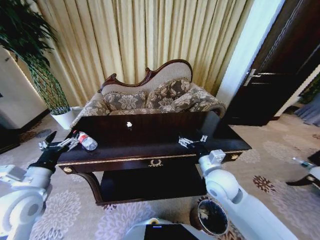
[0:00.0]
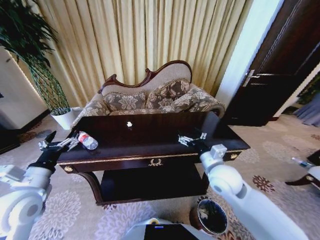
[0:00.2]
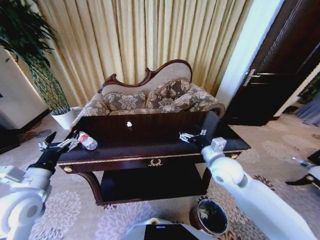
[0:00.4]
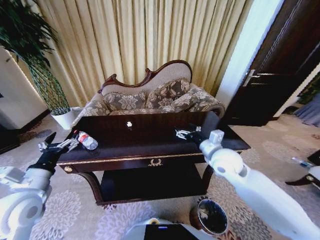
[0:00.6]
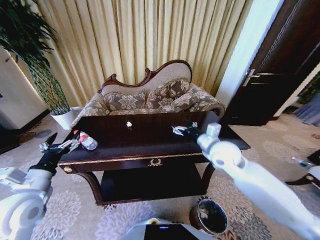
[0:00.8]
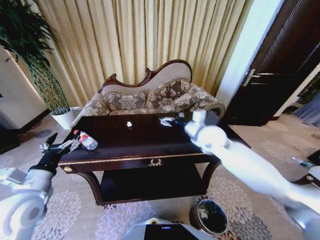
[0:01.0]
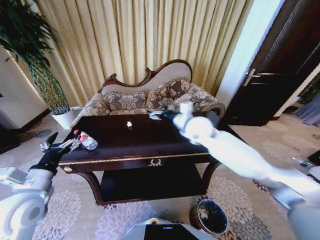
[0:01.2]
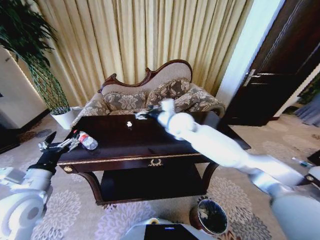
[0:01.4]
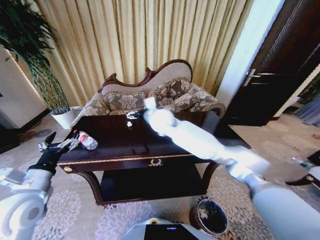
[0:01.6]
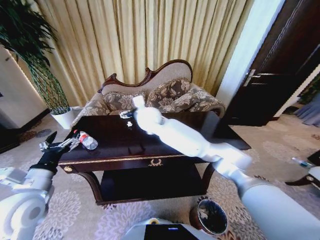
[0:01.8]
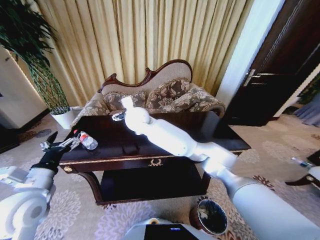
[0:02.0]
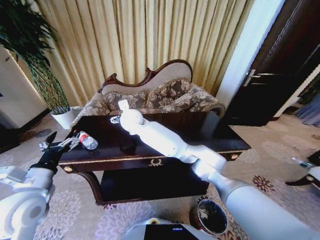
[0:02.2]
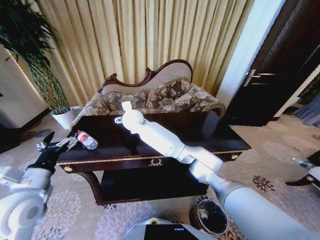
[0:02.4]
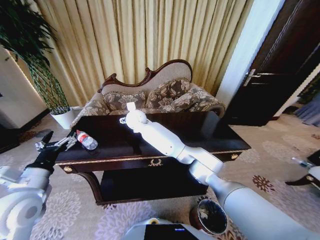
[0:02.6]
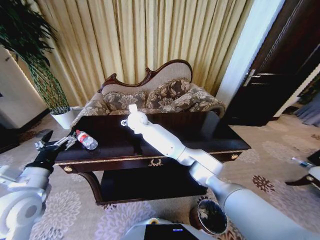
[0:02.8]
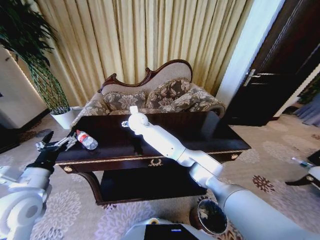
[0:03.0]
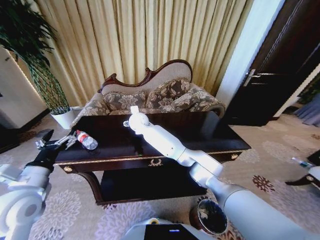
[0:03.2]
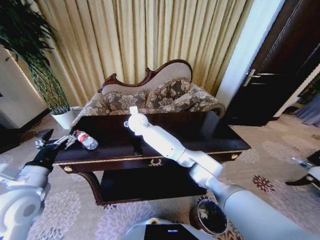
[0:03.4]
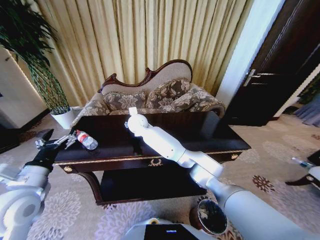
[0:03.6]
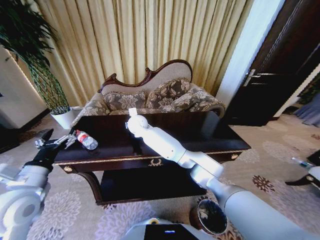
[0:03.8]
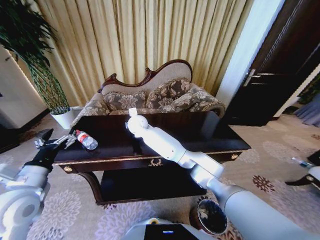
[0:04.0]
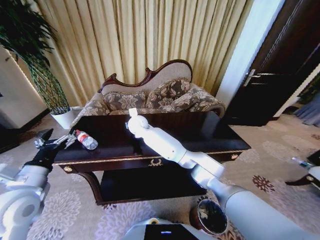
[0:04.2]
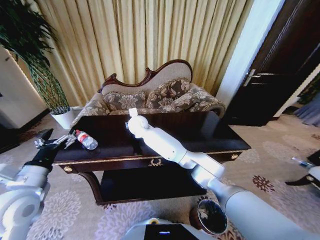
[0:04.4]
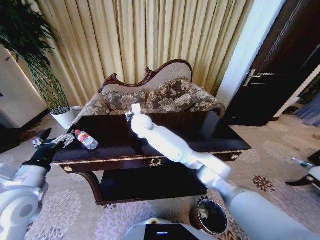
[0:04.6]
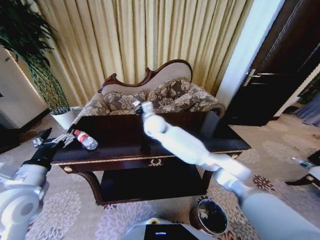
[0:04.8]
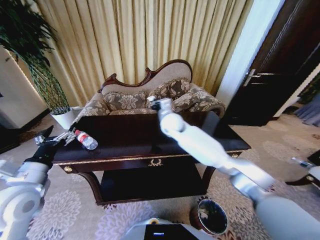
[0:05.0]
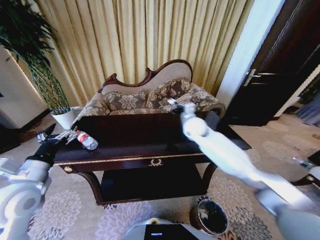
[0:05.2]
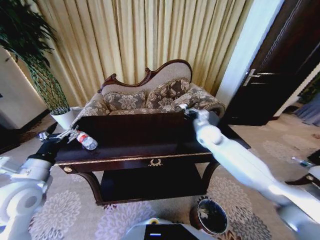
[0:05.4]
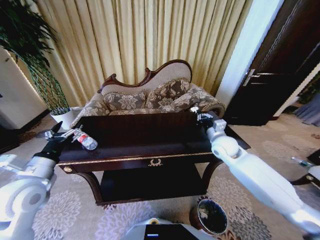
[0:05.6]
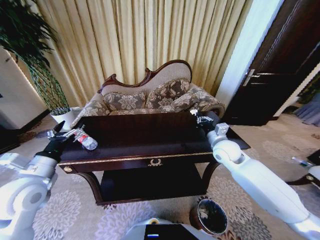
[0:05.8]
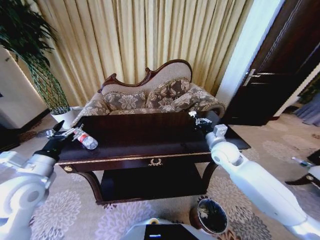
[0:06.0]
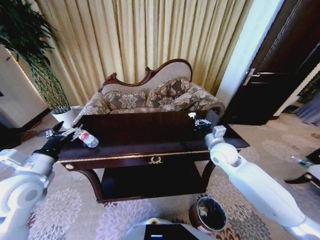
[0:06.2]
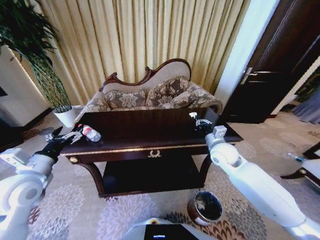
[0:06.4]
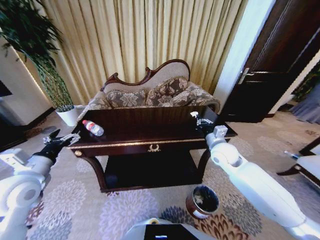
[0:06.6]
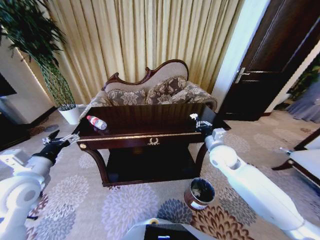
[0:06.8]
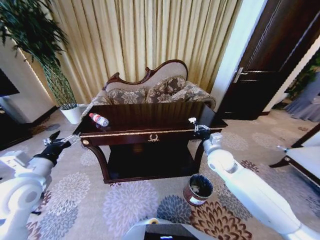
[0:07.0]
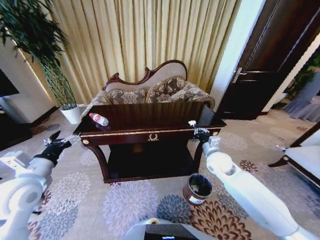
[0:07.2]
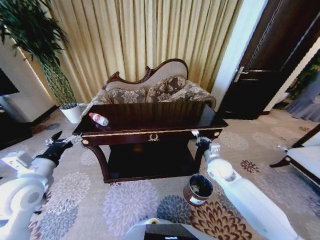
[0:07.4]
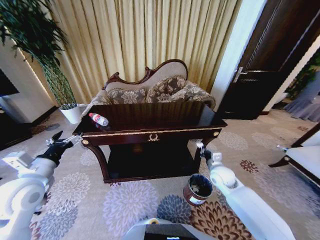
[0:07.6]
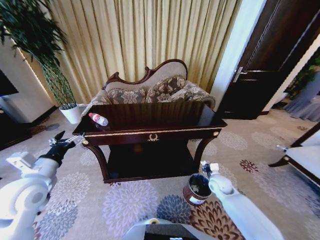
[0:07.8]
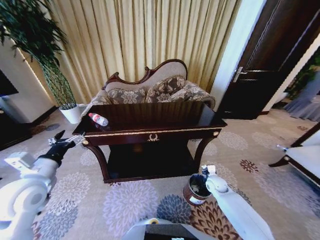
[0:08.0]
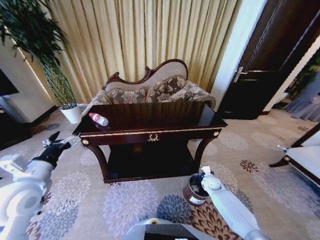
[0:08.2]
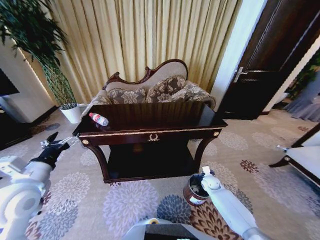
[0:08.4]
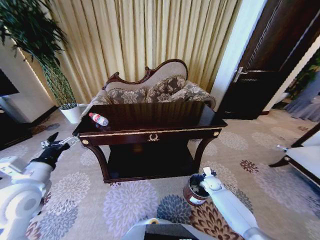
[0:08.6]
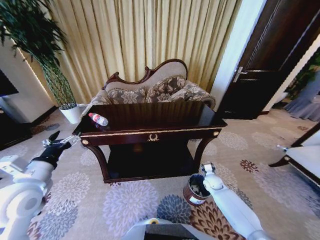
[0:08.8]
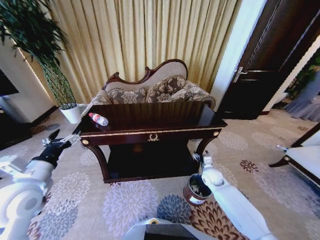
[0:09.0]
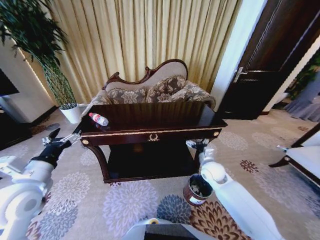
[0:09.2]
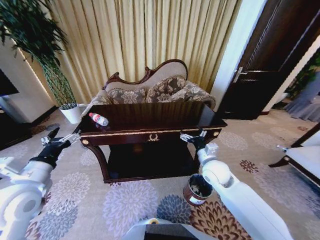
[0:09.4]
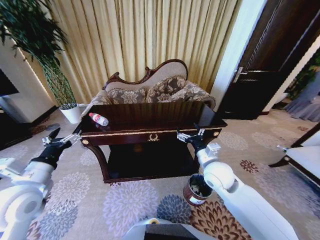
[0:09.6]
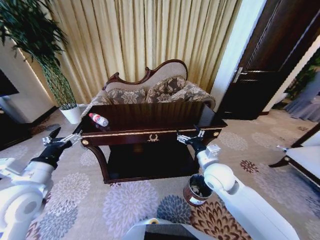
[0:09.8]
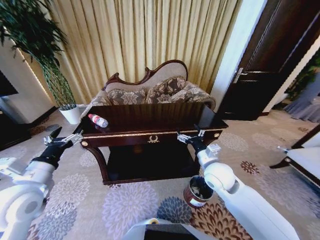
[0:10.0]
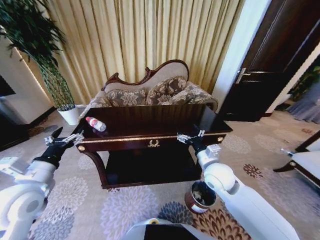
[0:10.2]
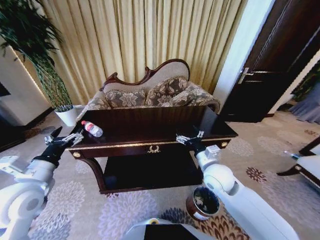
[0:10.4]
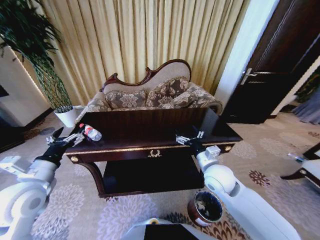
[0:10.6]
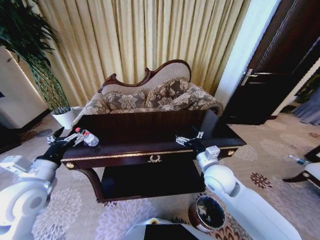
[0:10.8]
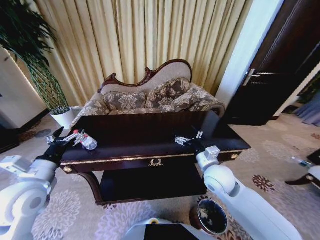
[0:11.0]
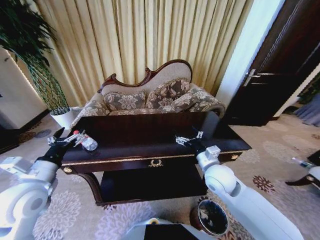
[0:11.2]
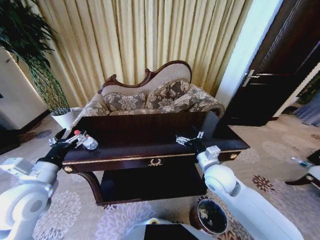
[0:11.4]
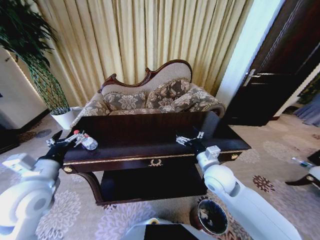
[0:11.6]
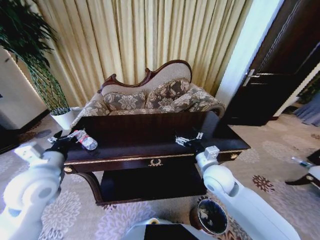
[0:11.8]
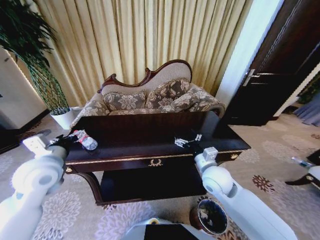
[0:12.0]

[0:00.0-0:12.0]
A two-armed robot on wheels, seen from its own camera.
Task of the whole recording: Move to the front of the table and place the trash on the table into the trash bin.
0:00.0 to 0:01.6: The right gripper heads forward, to the left and upward, covering approximately 30 cm.
0:01.6 to 0:03.0: The right gripper heads to the left, forward and downward, covering about 15 cm.
0:03.0 to 0:04.4: The right gripper closes up.
0:04.4 to 0:06.0: The right gripper shifts about 35 cm to the right.
0:06.0 to 0:07.6: The right gripper shifts approximately 15 cm downward.
0:07.6 to 0:09.0: The right gripper reaches some 20 cm downward, then returns, and opens.
0:09.0 to 0:10.4: The right gripper shifts some 20 cm upward, to the left and backward.
0:10.4 to 0:12.0: The left gripper heads forward, covering approximately 5 cm.

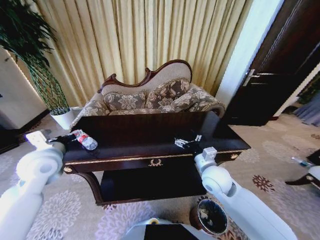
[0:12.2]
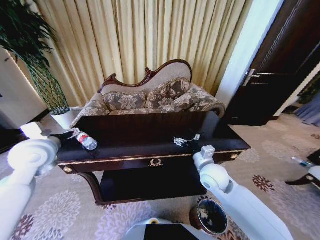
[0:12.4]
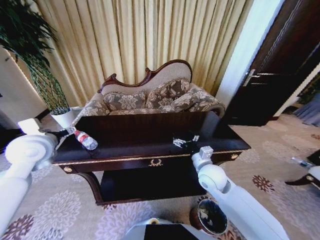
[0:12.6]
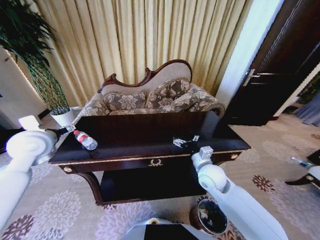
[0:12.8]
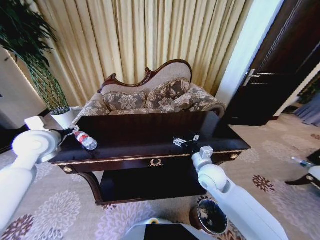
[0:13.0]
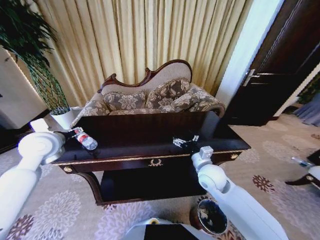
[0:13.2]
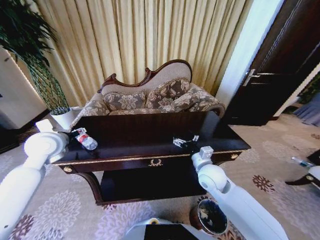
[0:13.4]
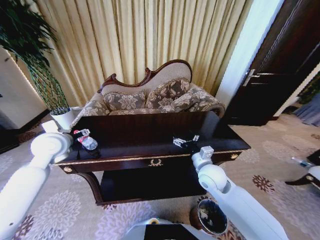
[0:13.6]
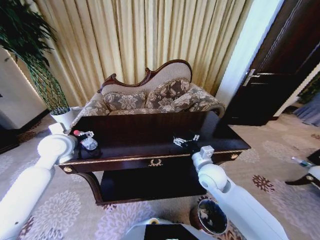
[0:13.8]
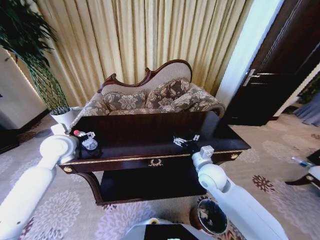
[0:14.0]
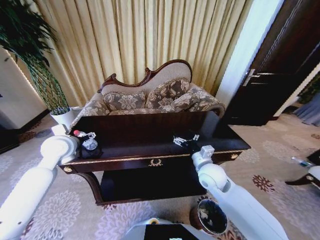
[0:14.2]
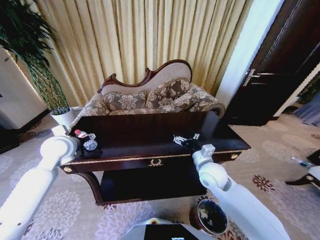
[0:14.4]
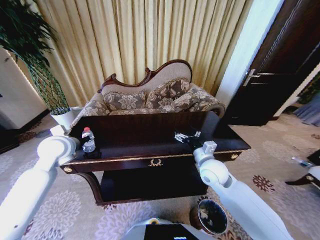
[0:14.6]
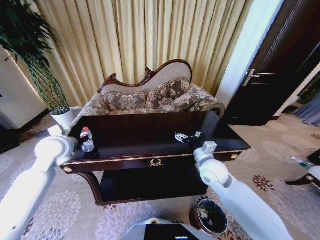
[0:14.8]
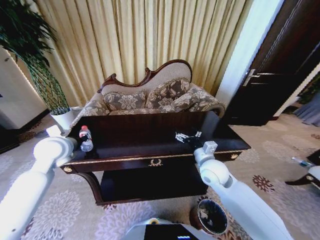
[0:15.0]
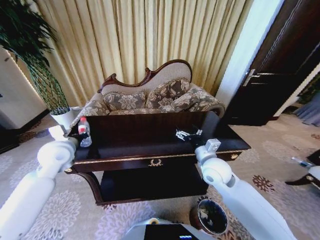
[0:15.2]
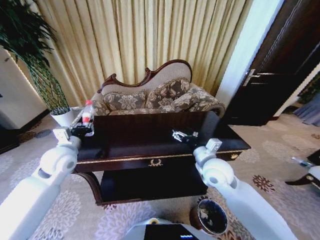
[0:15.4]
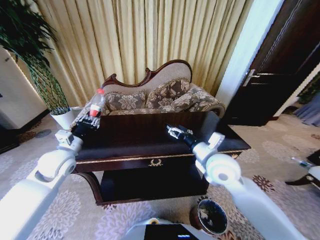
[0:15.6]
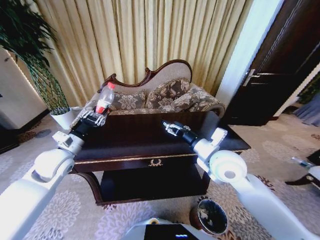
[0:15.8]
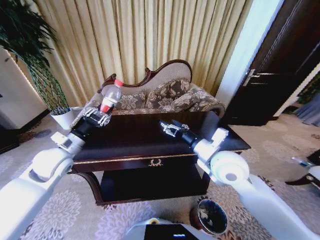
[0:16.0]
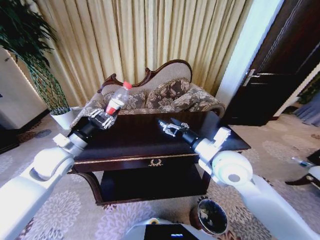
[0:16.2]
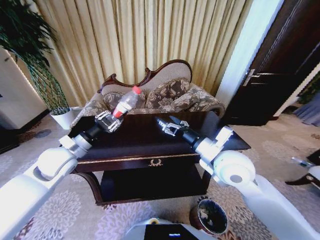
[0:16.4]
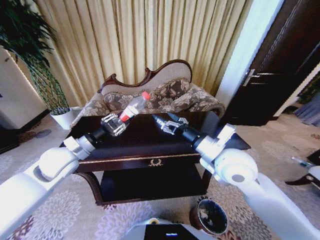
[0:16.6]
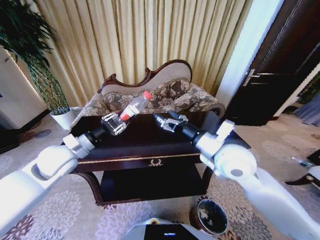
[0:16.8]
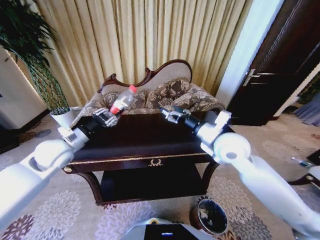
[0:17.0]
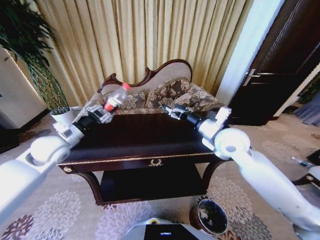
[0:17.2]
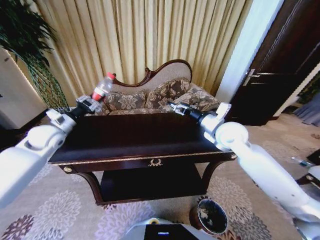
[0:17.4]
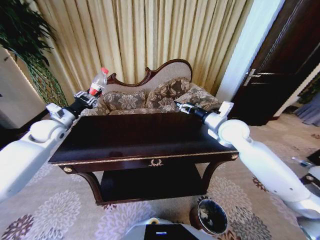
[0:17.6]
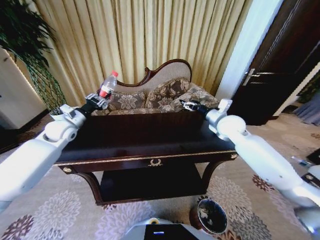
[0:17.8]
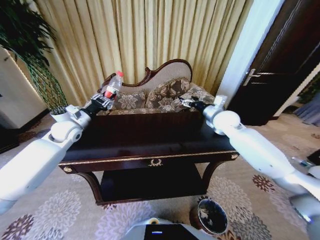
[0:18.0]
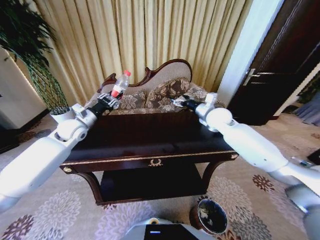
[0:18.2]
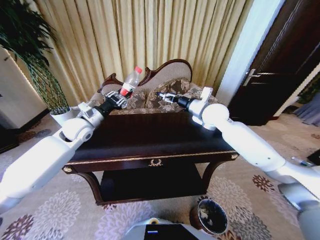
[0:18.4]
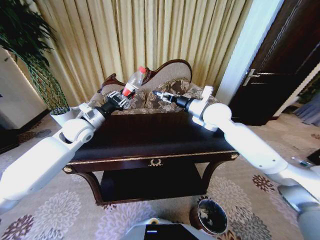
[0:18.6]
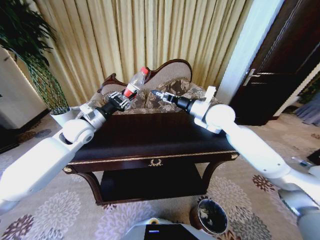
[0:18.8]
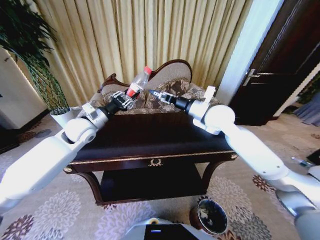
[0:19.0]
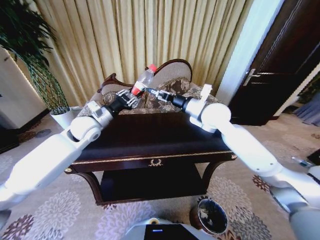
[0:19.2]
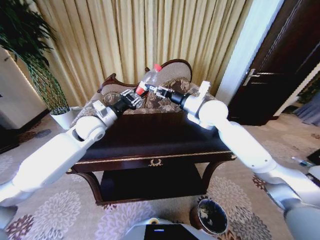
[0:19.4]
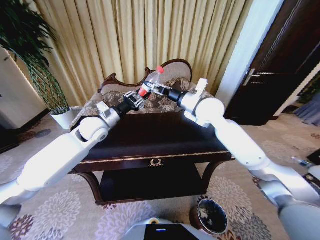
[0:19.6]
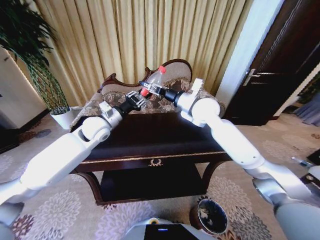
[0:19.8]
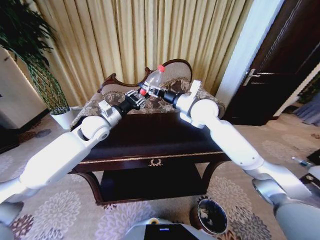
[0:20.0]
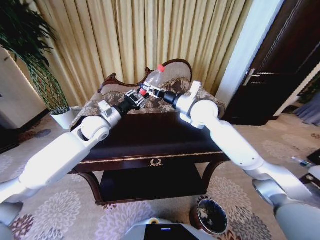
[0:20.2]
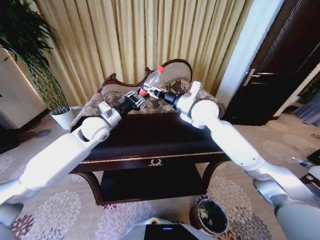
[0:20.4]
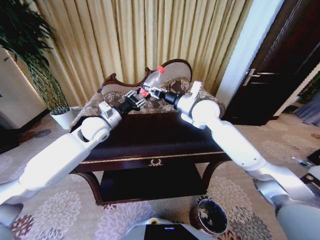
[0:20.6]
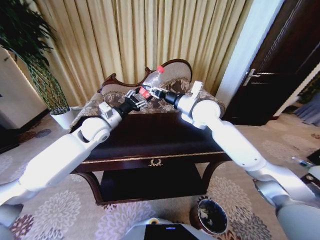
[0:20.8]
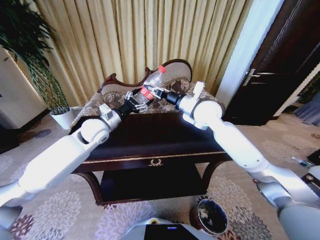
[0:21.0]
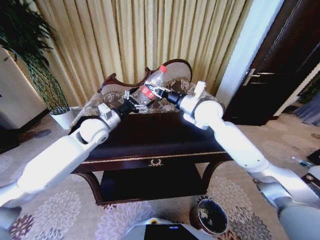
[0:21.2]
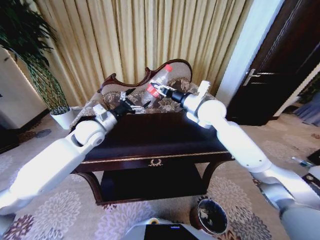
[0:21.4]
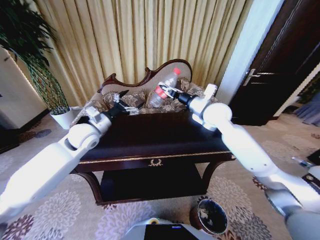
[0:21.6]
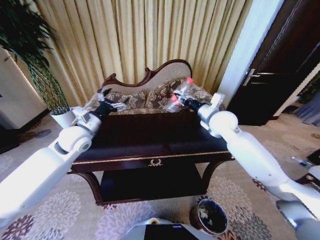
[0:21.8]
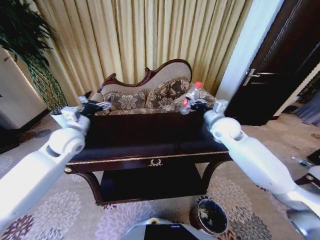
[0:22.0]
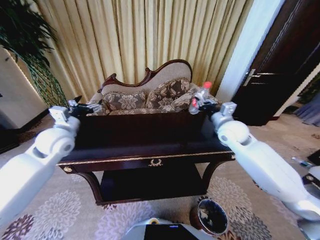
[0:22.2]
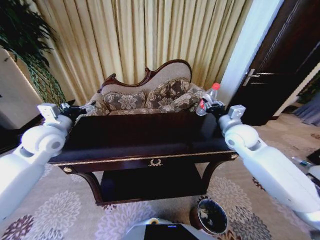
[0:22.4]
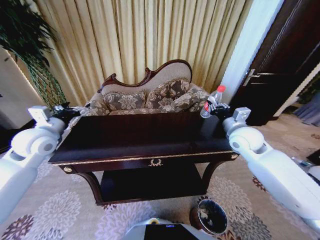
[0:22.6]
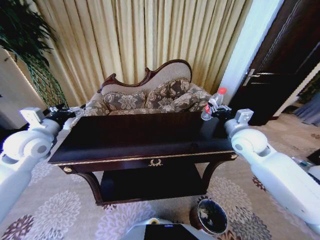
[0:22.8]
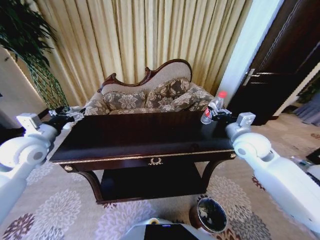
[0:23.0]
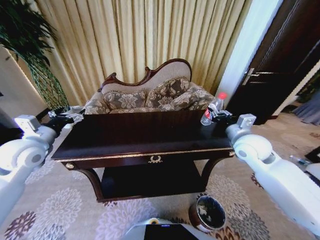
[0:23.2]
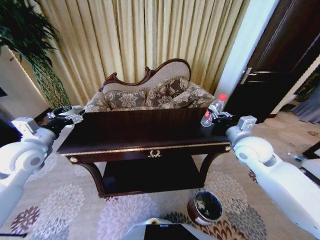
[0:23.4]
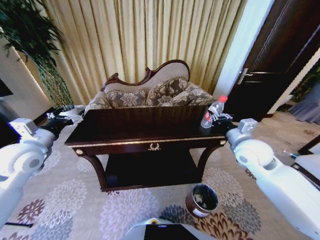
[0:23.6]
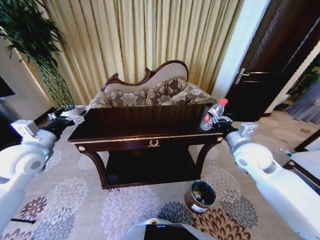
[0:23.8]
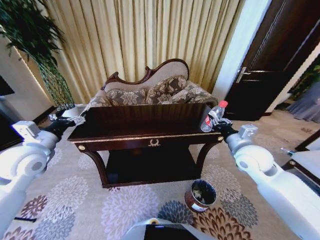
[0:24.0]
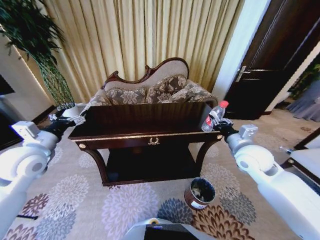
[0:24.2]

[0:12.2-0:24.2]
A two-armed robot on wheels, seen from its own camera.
Task of the whole recording: Move to the front of the table and place the trash on the table into the trash bin.
0:12.2 to 0:13.8: The left gripper heads forward, covering roughly 5 cm.
0:13.8 to 0:15.2: The left gripper closes up.
0:15.2 to 0:16.6: The right gripper is displaced upward by approximately 10 cm.
0:16.6 to 0:18.2: The left gripper is displaced forward by about 15 cm; the right gripper is displaced forward by some 25 cm.
0:18.2 to 0:19.8: The right gripper heads to the left and upward, covering about 10 cm. The left gripper is displaced to the right by about 10 cm.
0:19.8 to 0:21.2: The right gripper closes, while the left gripper opens up.
0:21.2 to 0:22.6: The right gripper heads to the right, downward and backward, covering some 15 cm. The left gripper is displaced to the left and backward by roughly 15 cm.
0:22.6 to 0:24.2: The two grippers go roughly 5 cm backward.
